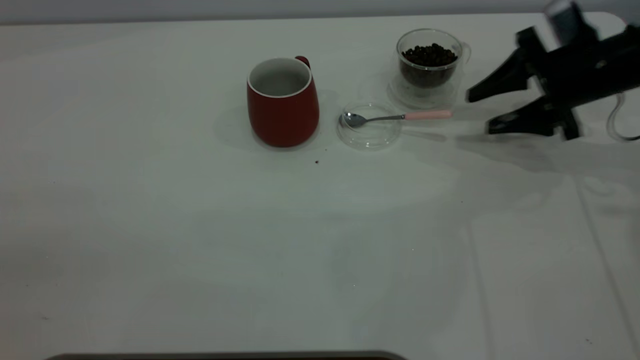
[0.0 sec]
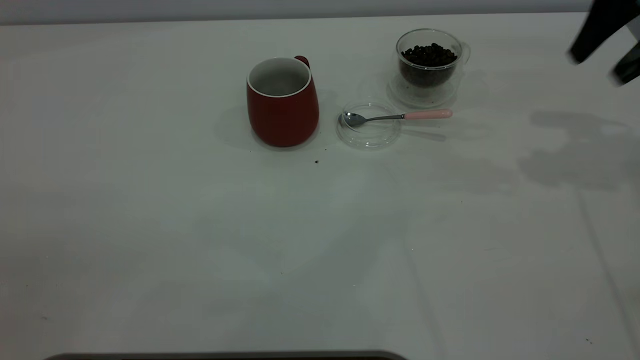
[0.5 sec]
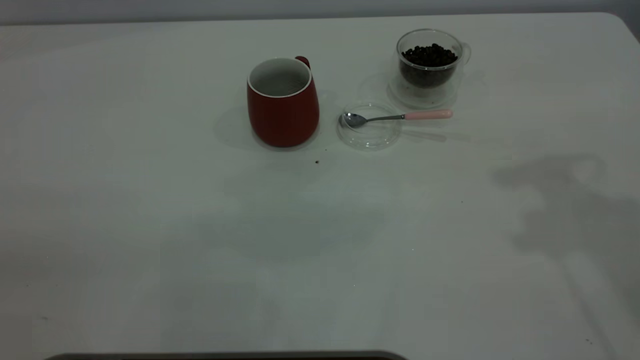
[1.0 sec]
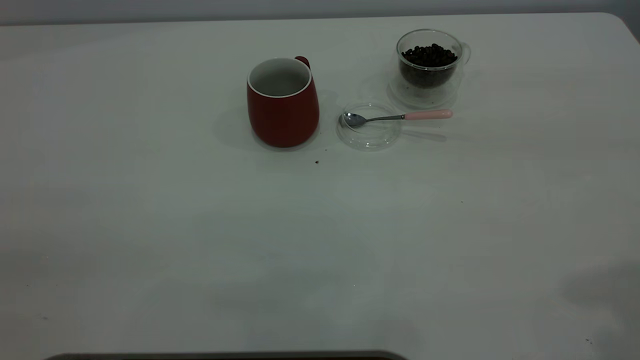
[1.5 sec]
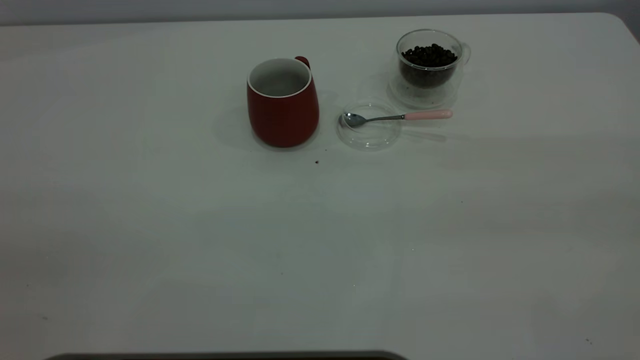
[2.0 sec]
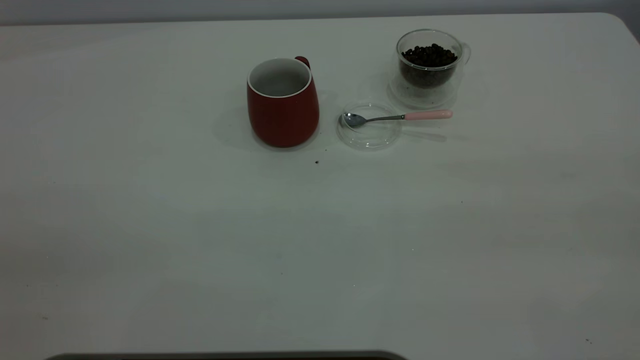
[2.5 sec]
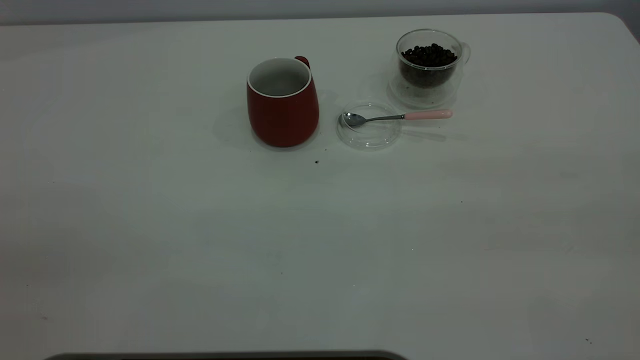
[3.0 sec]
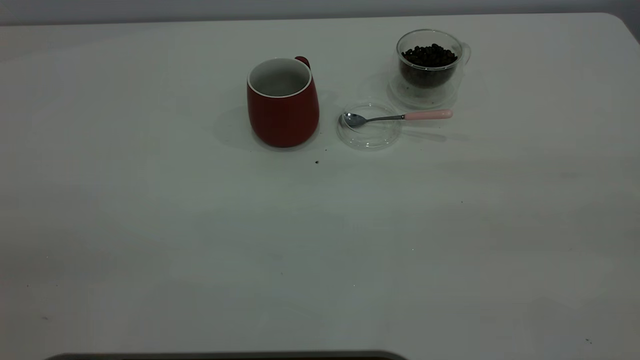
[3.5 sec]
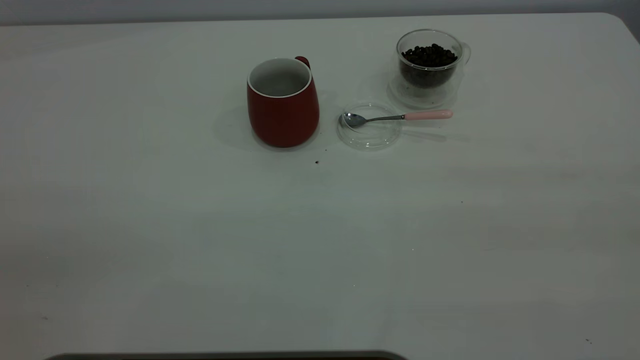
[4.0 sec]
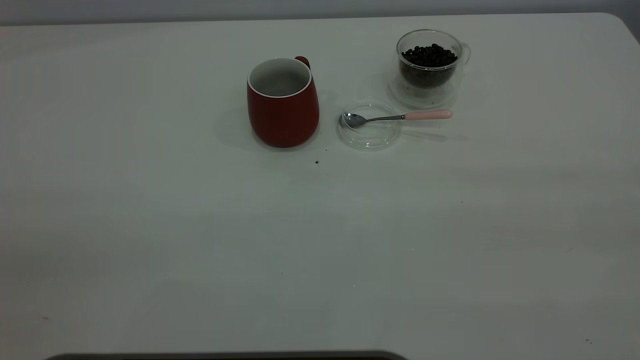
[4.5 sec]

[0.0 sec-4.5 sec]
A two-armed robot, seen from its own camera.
Task of the whole recording: the left gripper place the red cup in the center of the table, the right gripper take the pink spoon from the cup lid and scoop out the coffee beans from the coffee cup and put them into the red cup, the right gripper put the spoon back into the cup lid.
0.0 sec to 2.0 sec: The right gripper heads backward and upward, covering some 40 cm.
